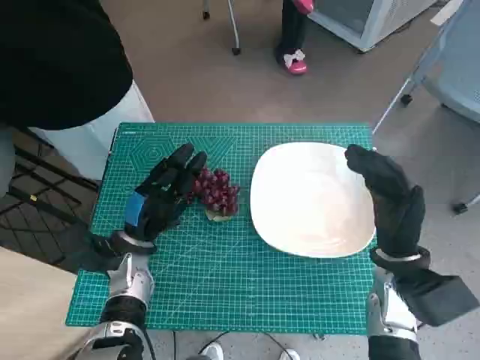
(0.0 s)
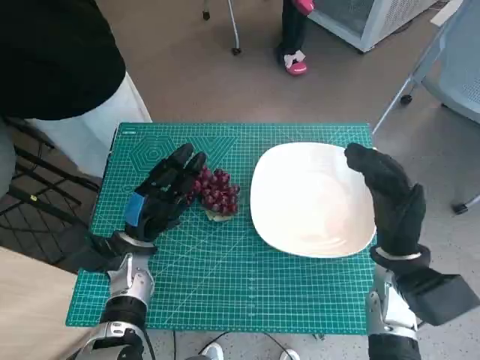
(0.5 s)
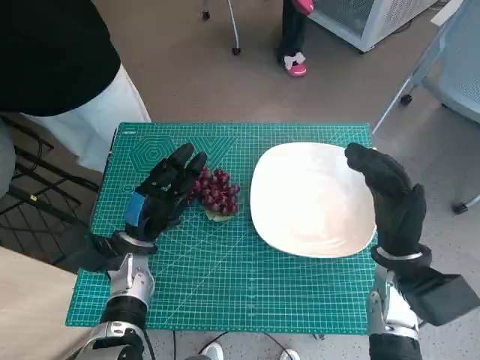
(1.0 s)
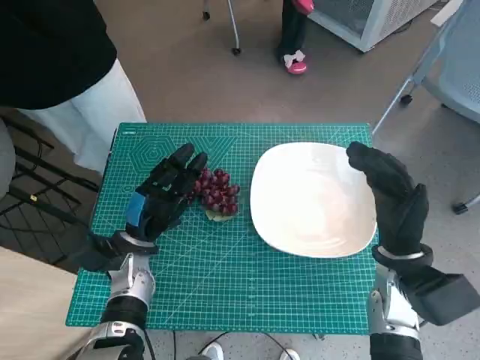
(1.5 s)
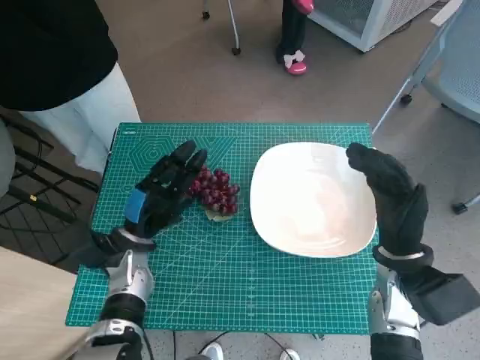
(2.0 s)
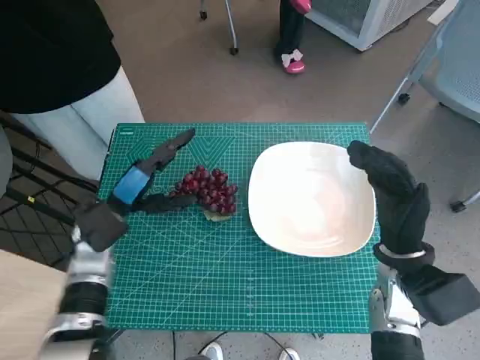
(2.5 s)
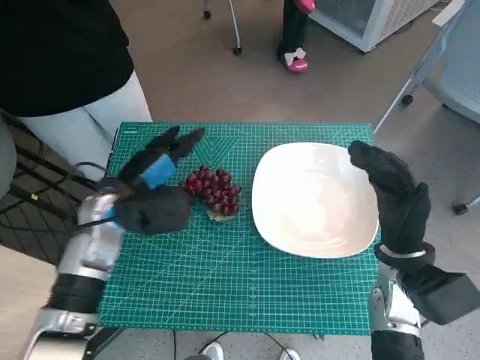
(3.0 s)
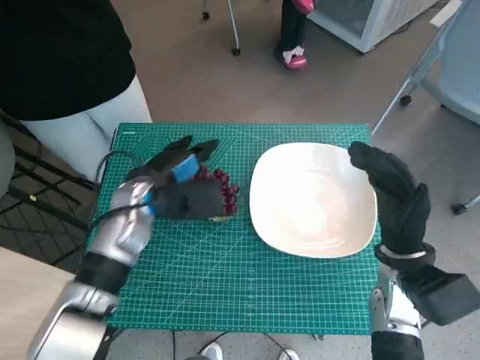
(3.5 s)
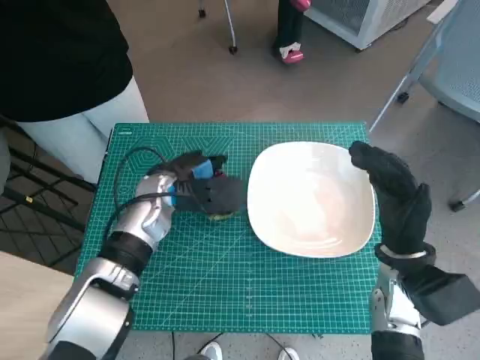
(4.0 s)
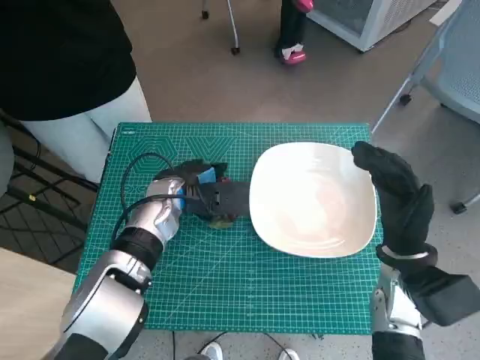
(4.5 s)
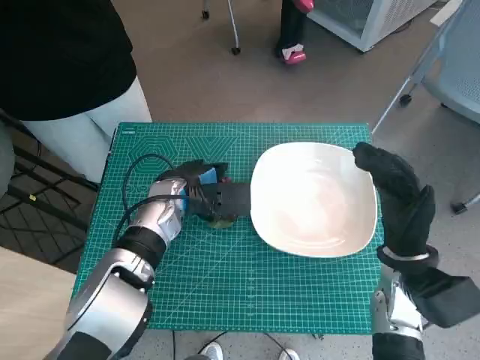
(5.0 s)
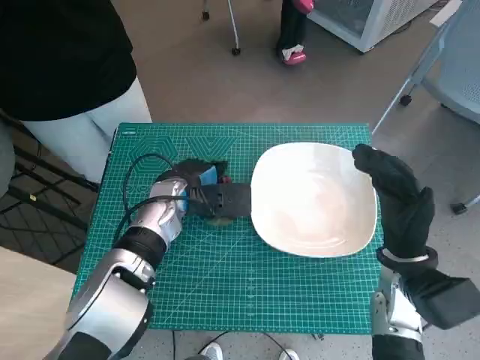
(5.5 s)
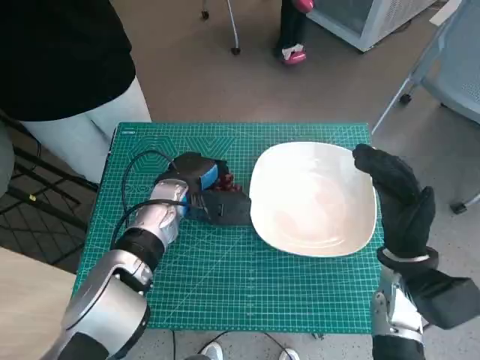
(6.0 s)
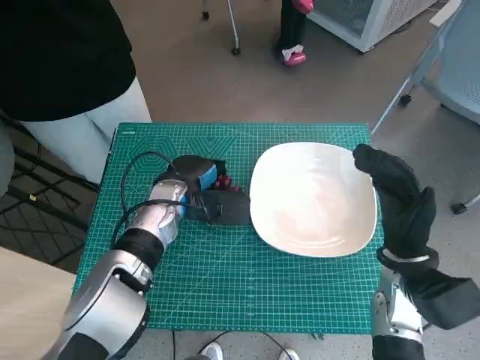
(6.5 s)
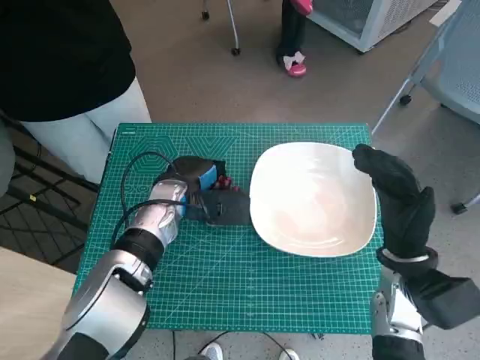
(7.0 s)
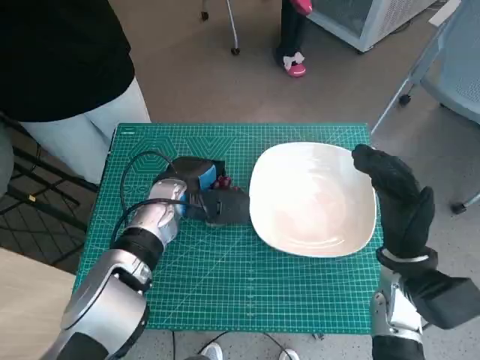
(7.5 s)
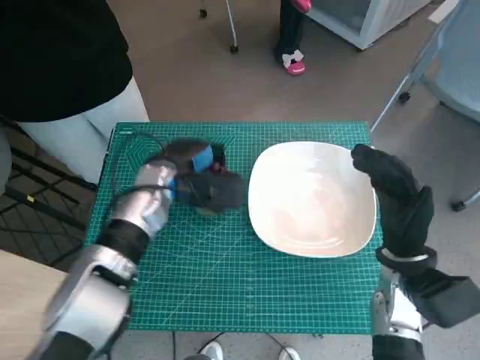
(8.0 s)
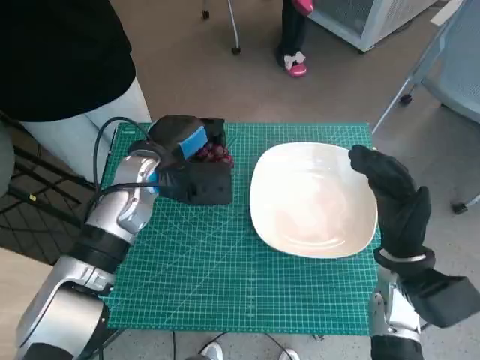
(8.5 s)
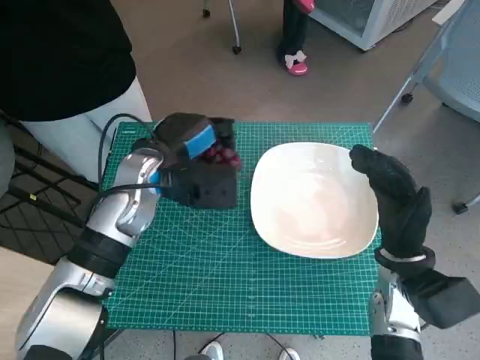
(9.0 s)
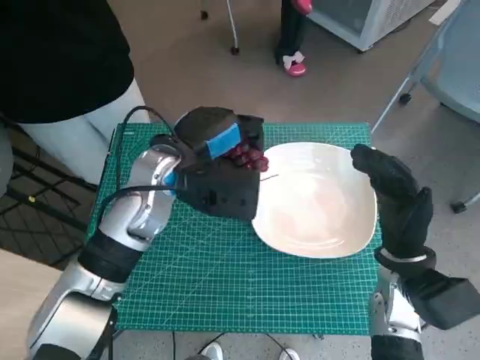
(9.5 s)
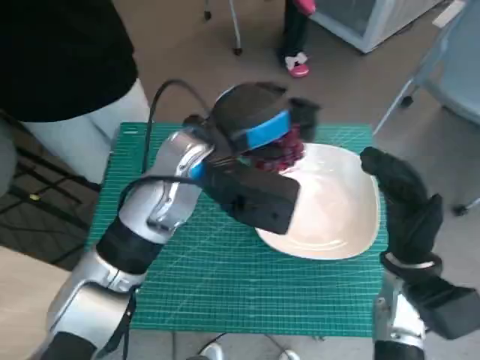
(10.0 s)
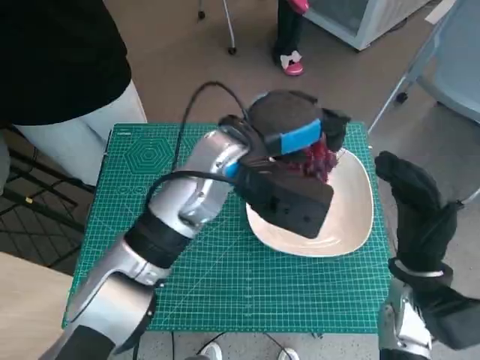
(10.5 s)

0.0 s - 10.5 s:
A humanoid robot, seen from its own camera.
Task of the whole recording: Pick up the grapes and put them on the plate.
Step, 0.0 s - 6.0 s: Grasp the grapes with left hand.
2.0 s - 4.0 s: The left hand moves upward, forward and to the right, some 15 cm.
4.0 s - 6.5 s: There are only small adjustments of the hands.
6.5 s - 8.5 s: The left hand is displaced upward by about 5 cm.
8.5 s - 10.5 s: The left hand heads to the right and upward, covering about 15 cm.

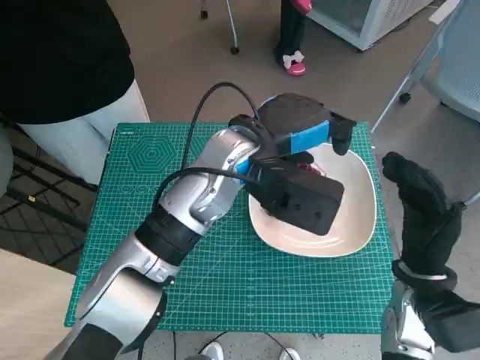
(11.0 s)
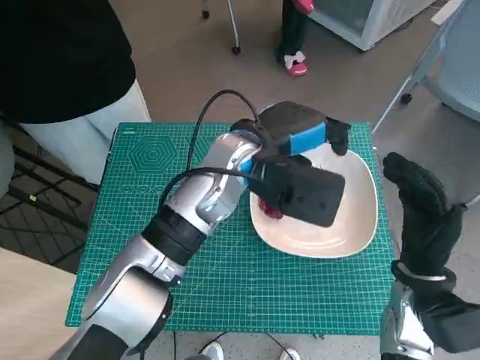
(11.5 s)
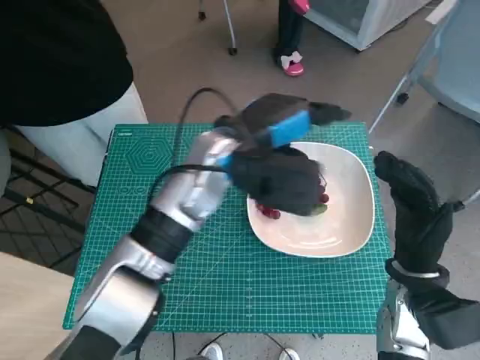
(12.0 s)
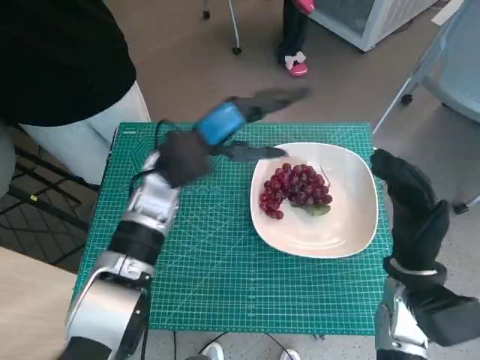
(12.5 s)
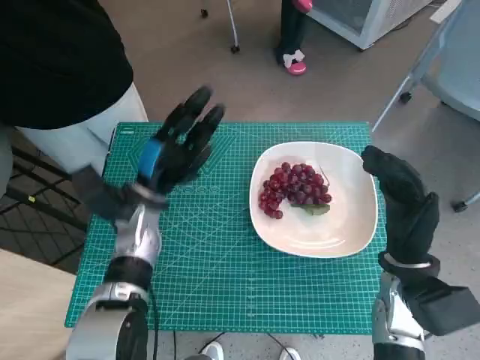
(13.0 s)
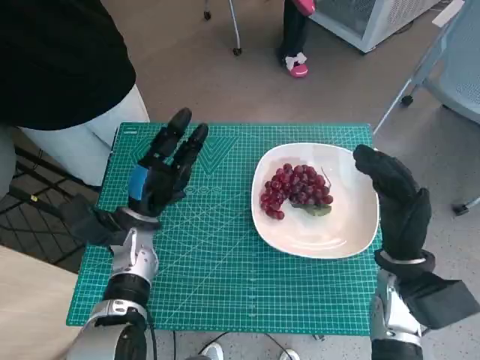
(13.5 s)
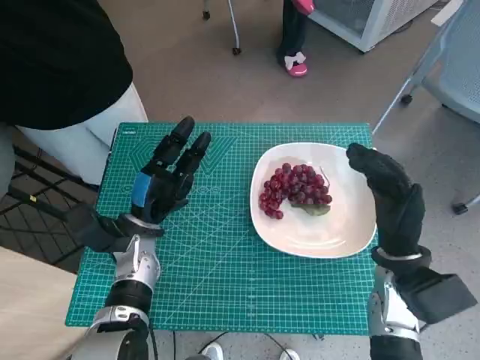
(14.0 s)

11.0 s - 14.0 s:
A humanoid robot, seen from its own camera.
Task of the whole recording: Pick up the grapes and put them on the plate.
11.0 s - 12.5 s: The left hand is displaced to the left by roughly 10 cm.
12.5 s - 14.0 s: The left hand moves downward and to the left, about 15 cm.

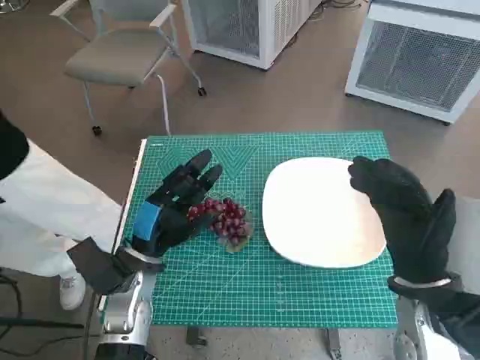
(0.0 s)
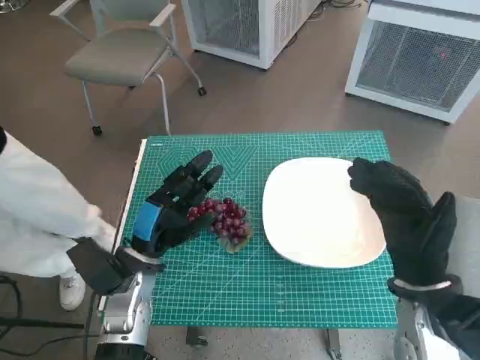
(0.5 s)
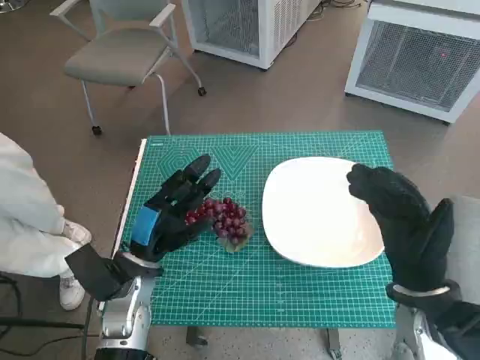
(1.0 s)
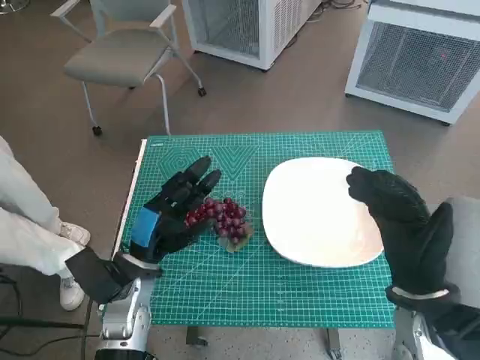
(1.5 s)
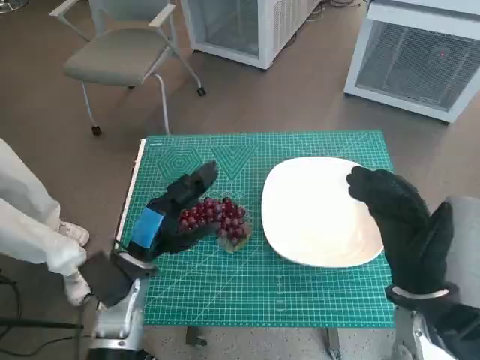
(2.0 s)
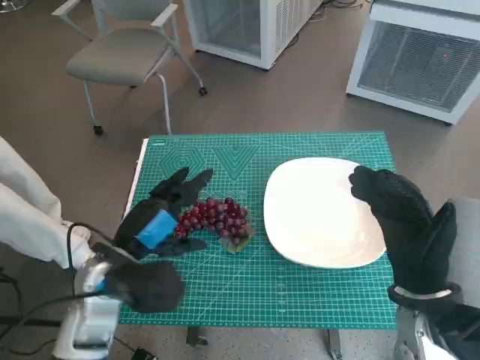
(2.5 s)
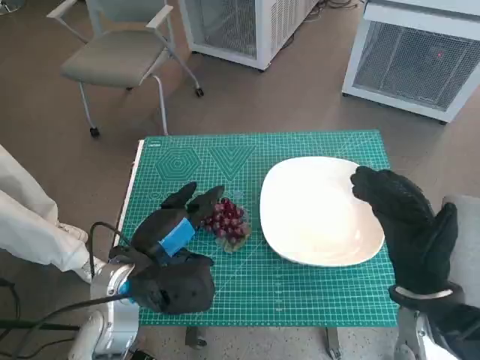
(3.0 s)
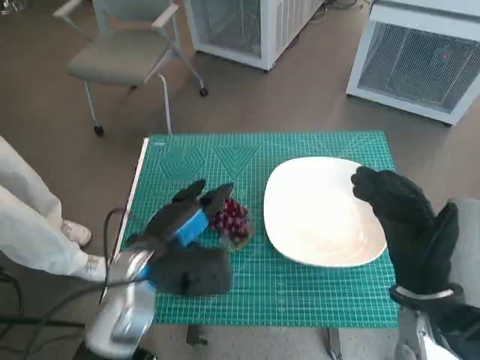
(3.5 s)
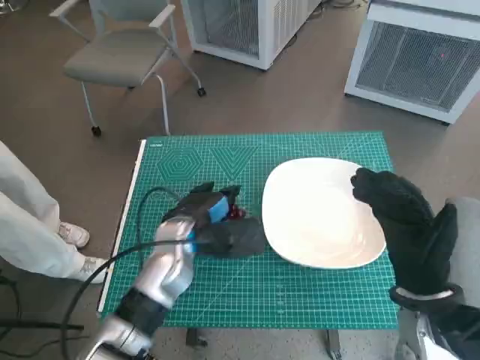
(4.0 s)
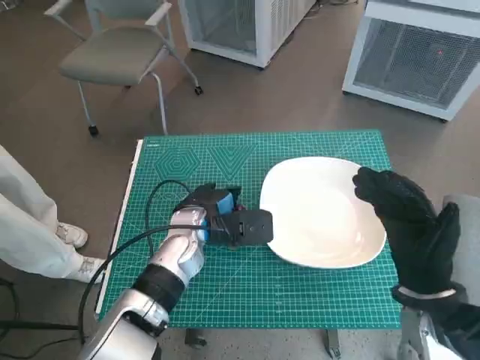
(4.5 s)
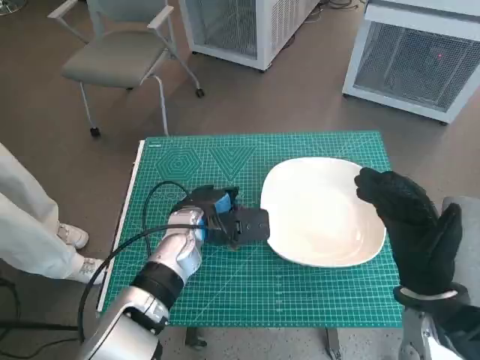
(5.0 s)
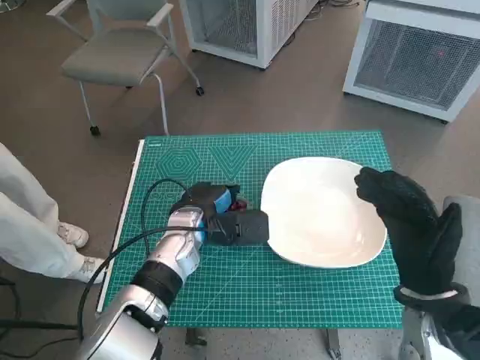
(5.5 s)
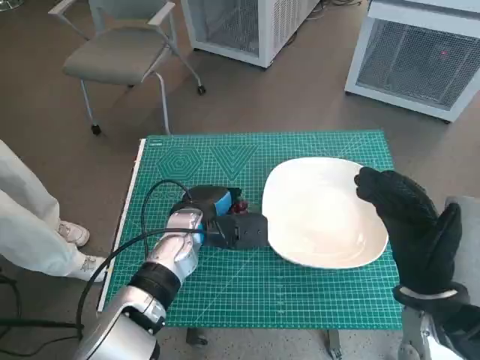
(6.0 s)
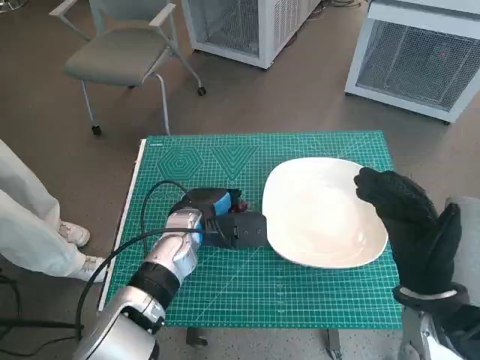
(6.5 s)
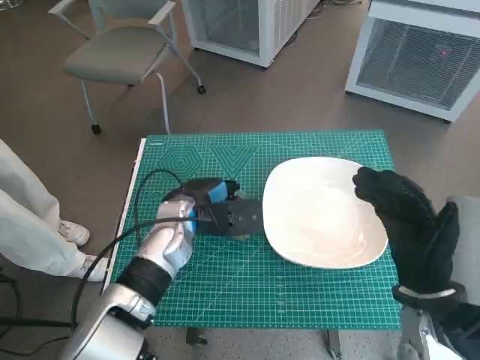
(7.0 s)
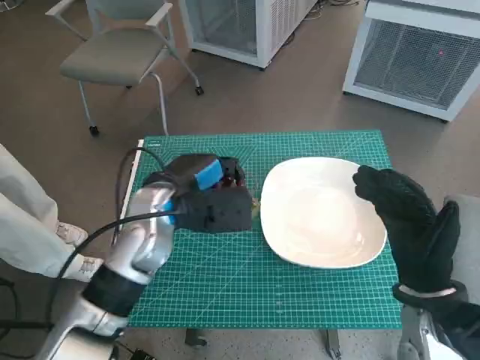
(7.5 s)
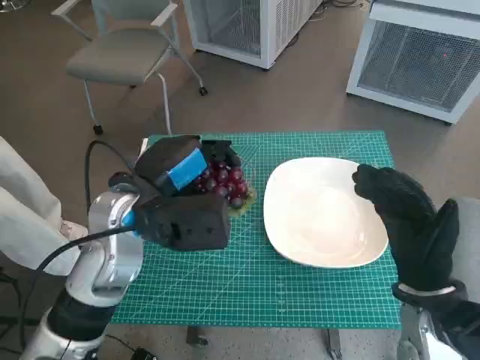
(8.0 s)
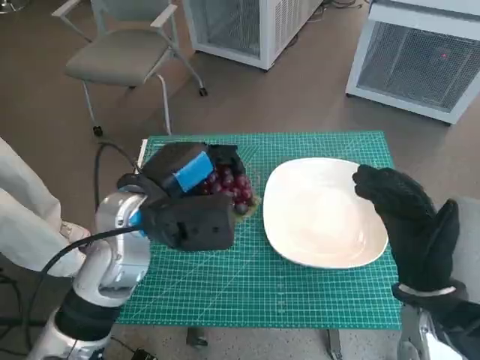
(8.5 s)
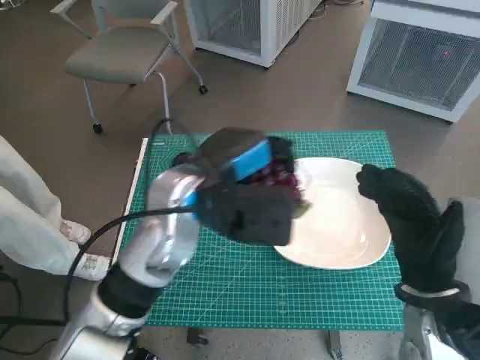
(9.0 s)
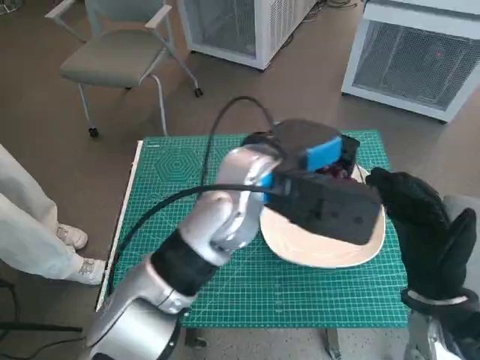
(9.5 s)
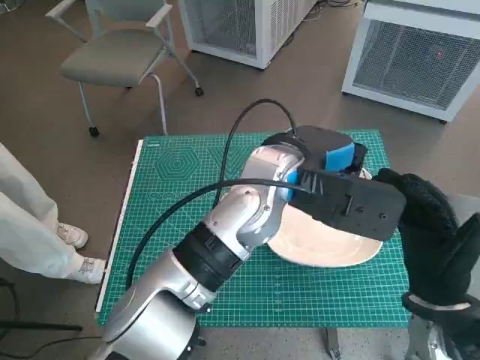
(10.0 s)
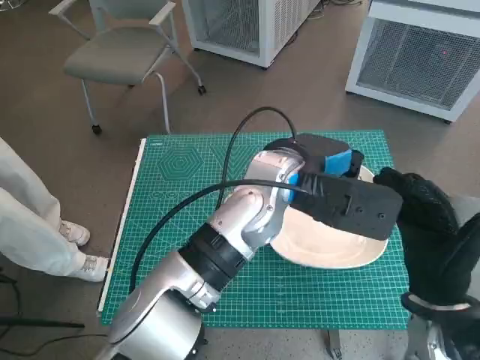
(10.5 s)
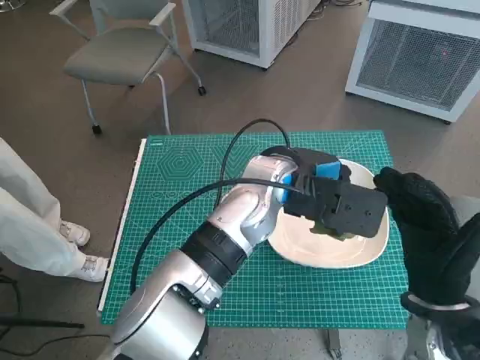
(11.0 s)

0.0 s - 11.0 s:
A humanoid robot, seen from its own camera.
Task of the whole recording: Pick up the grapes and put them on the plate.
Step, 0.0 s - 6.5 s: Grasp the grapes with left hand.
2.0 s - 3.5 s: The left hand moves about 5 cm.
3.5 s - 5.5 s: The left hand moves forward, roughly 10 cm.
5.5 s - 7.5 s: The left hand shifts approximately 10 cm upward.
7.5 s - 9.0 s: The left hand heads upward, covering about 5 cm.
9.0 s - 11.0 s: The left hand travels to the right by about 10 cm.

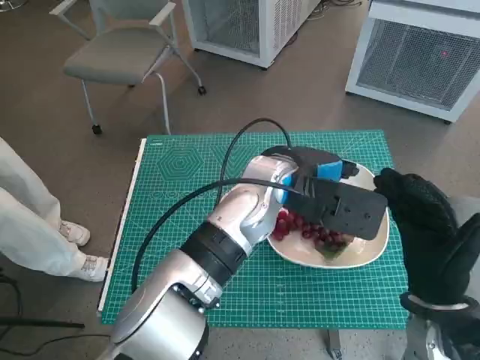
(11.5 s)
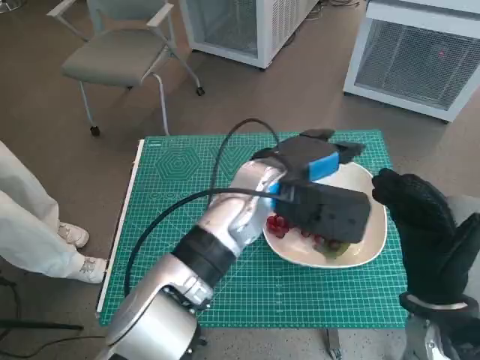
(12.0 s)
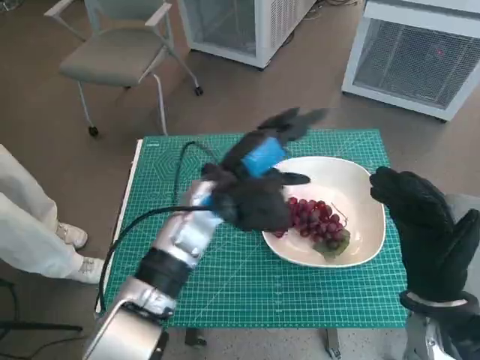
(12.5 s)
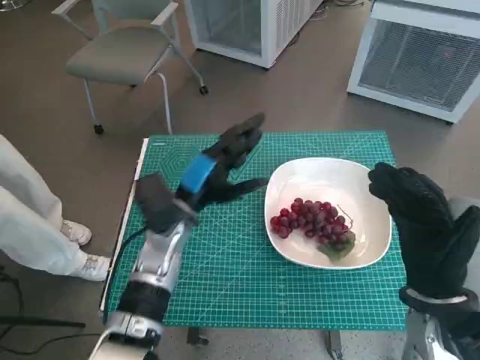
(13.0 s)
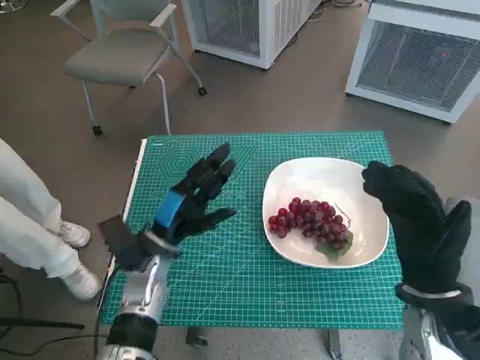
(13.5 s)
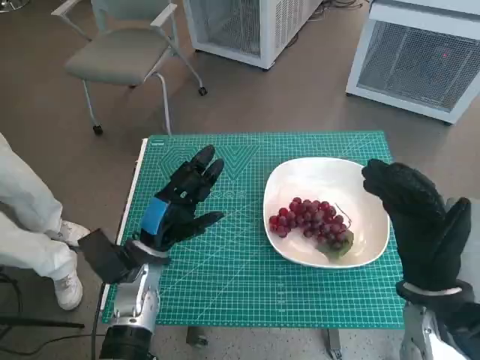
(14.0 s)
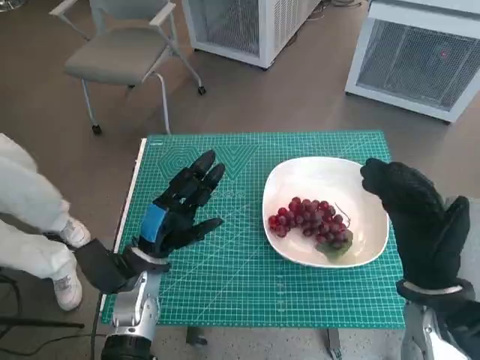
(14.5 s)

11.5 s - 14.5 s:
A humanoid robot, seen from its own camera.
Task of the whole recording: Pick up the grapes and put them on the plate.
11.5 s - 13.0 s: The left hand travels to the left and downward by approximately 15 cm.
13.0 s - 14.5 s: The left hand travels downward, backward and to the left by roughly 10 cm.
